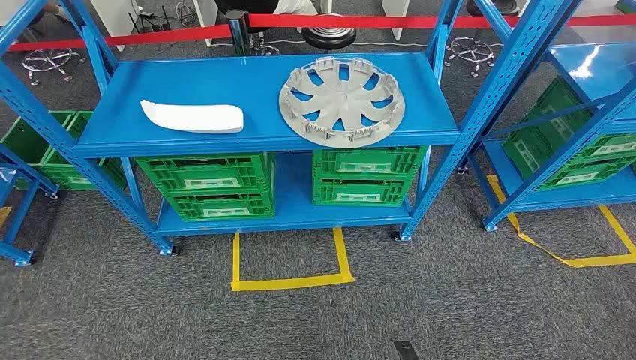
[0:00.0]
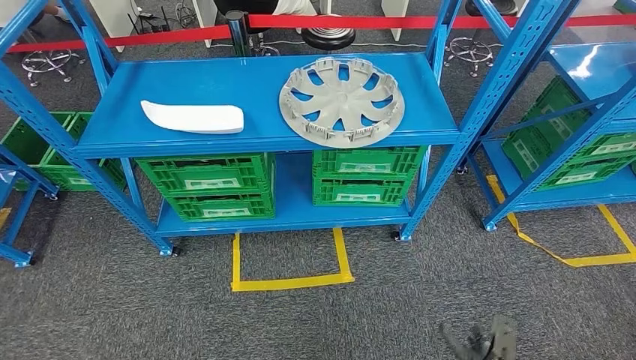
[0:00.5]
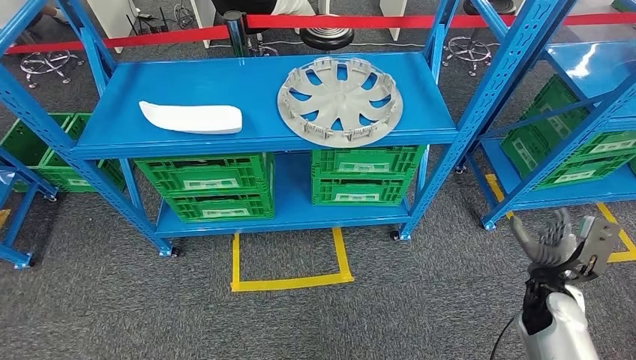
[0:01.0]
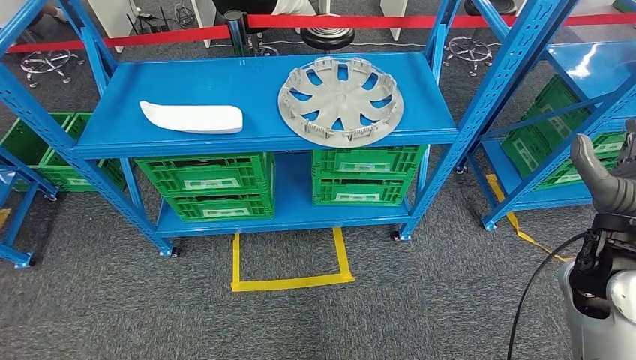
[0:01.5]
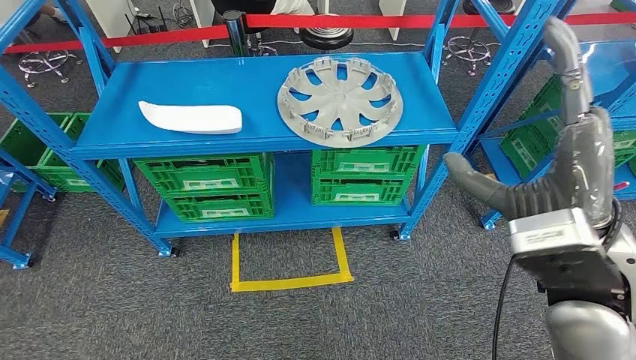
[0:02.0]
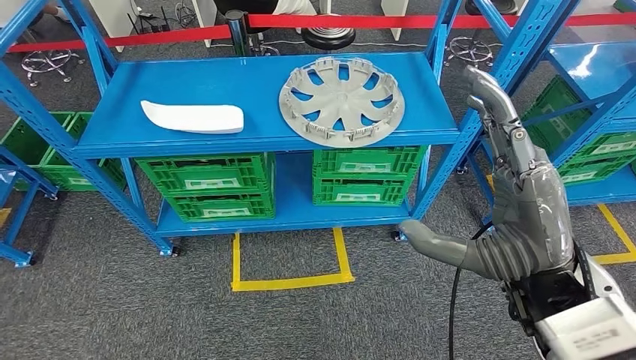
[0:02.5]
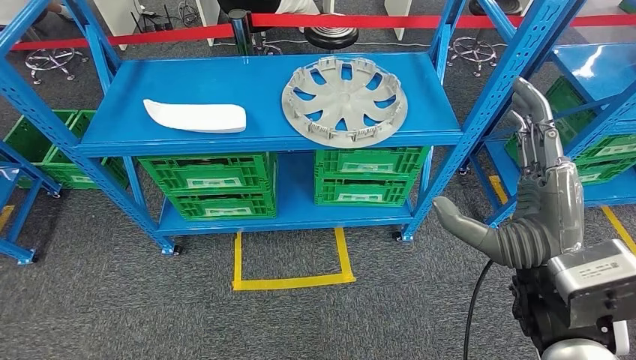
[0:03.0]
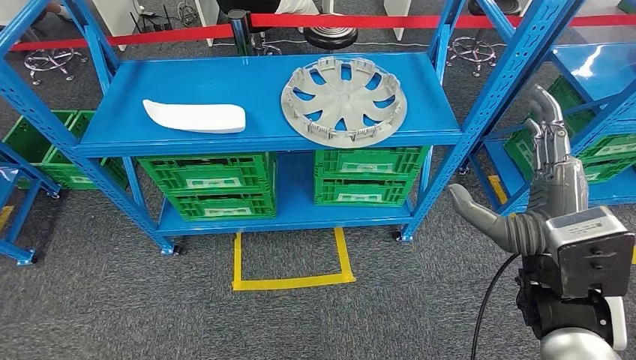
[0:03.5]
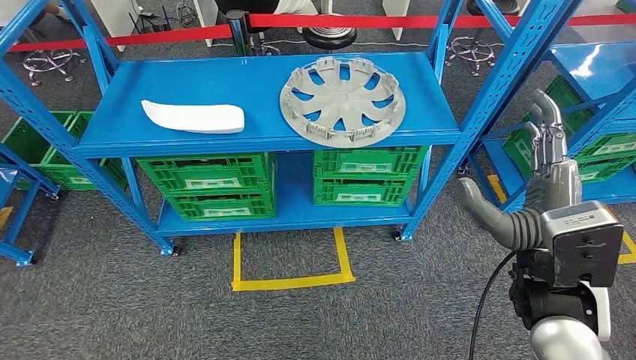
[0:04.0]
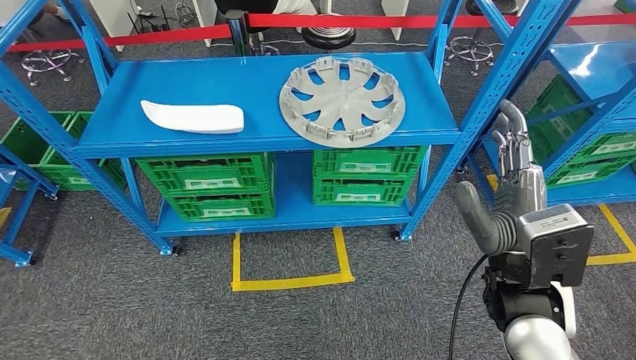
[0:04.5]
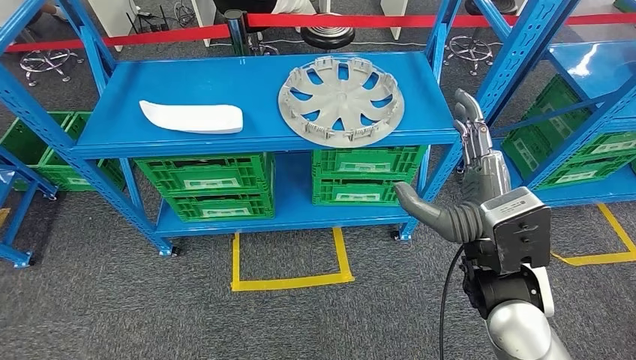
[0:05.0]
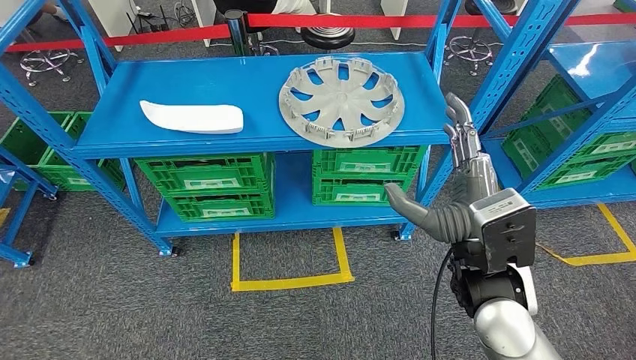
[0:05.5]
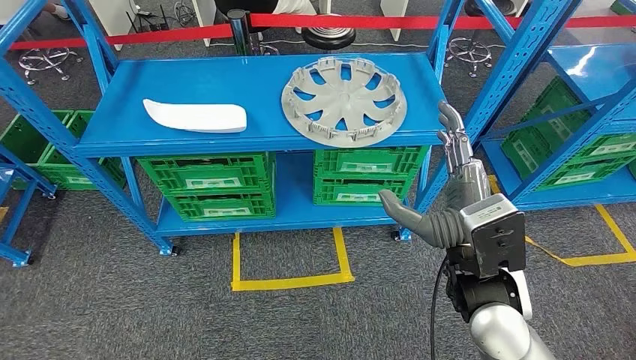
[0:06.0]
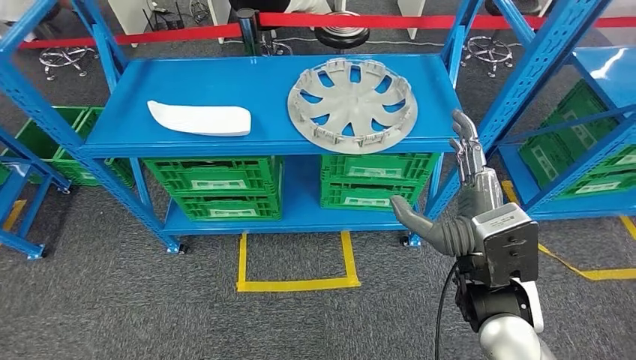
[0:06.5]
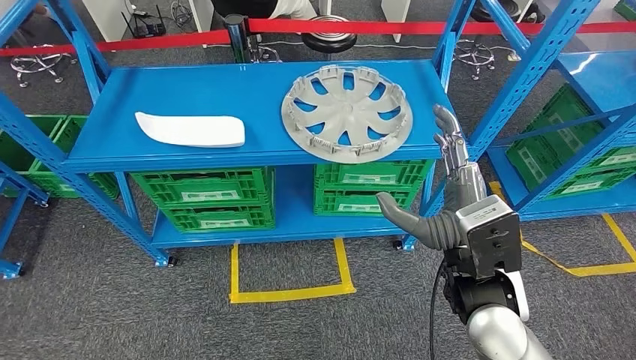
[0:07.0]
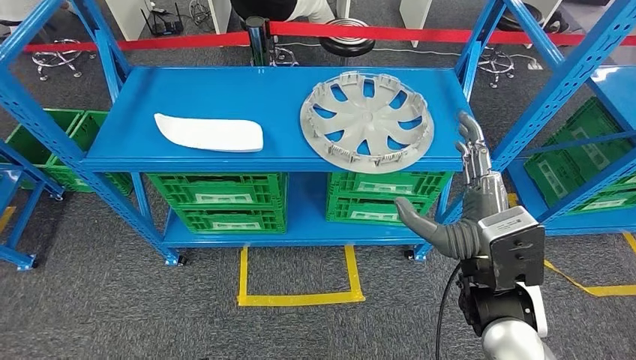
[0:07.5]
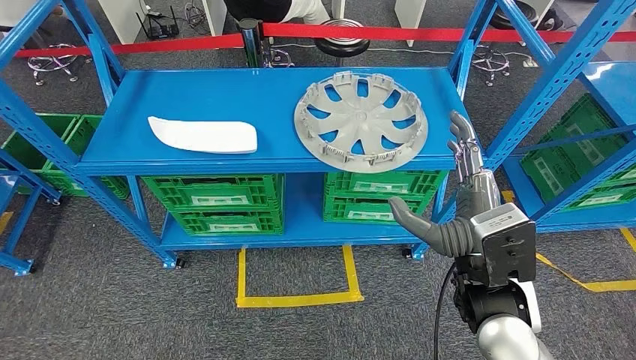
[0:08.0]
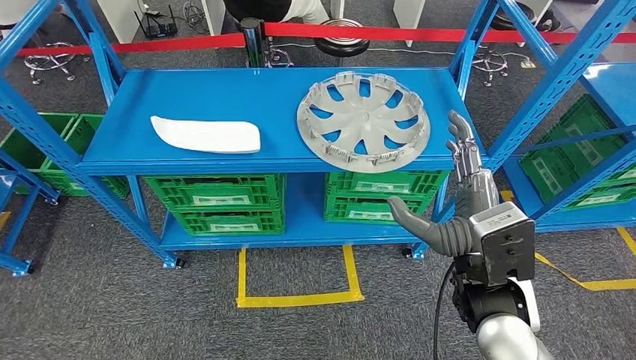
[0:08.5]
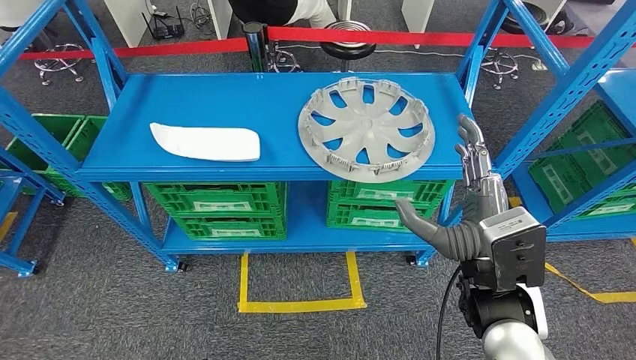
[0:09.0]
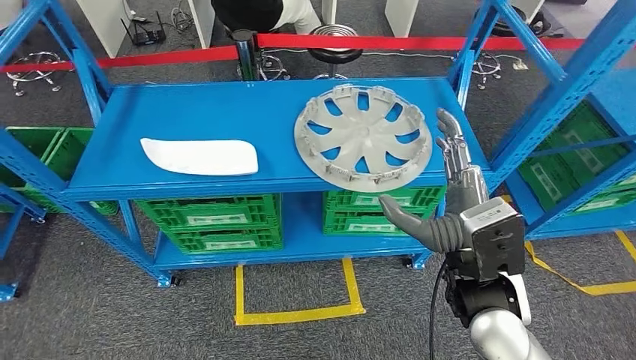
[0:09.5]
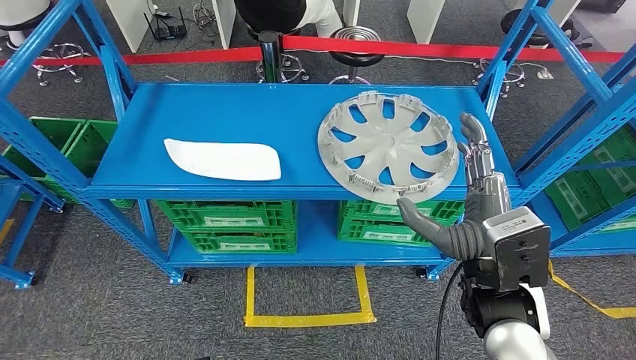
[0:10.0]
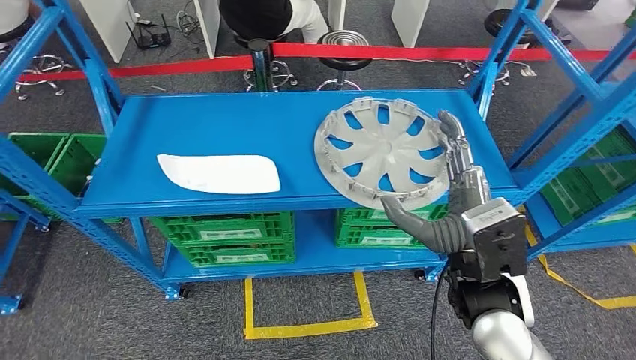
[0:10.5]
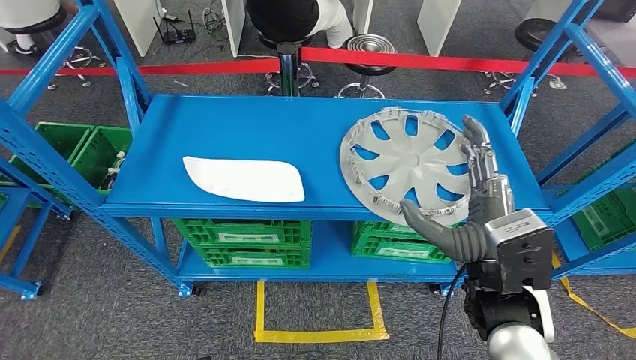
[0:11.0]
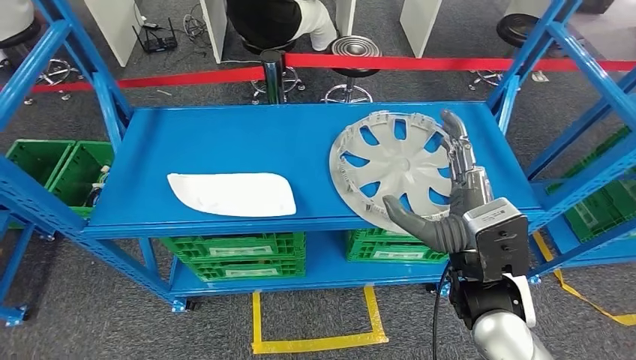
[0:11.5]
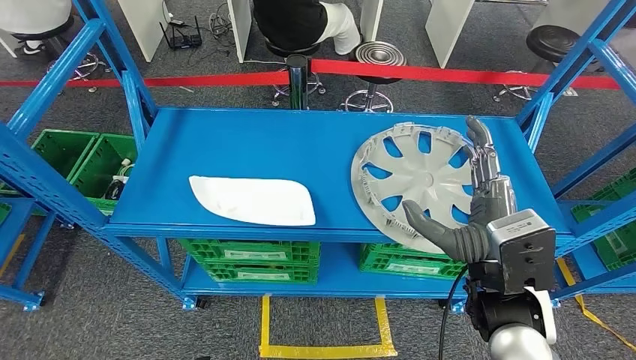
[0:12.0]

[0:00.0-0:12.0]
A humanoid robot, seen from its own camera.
0:02.0 to 0:04.0: The right hand goes approximately 5 cm downward.
0:04.0 to 0:06.0: The right hand shifts about 5 cm to the left.

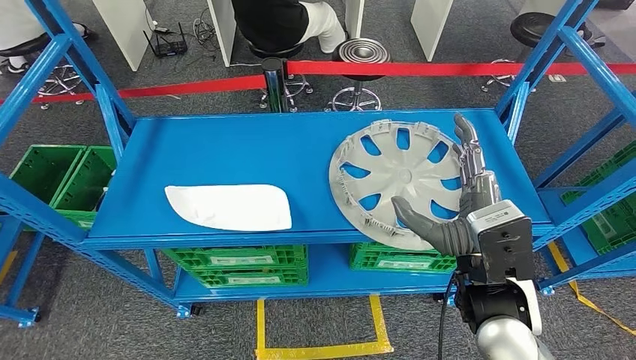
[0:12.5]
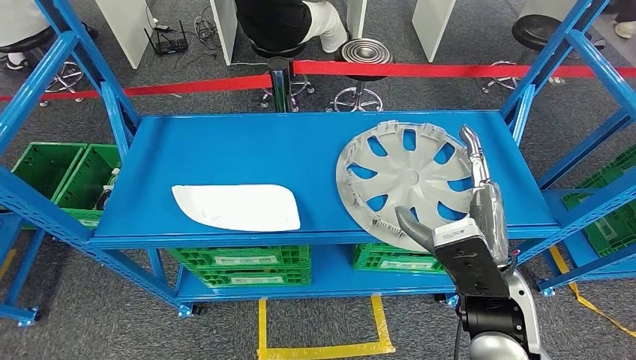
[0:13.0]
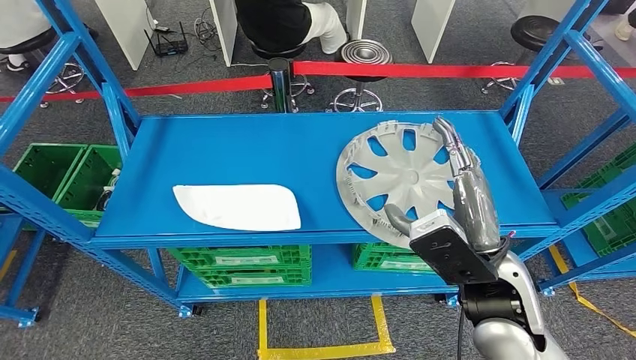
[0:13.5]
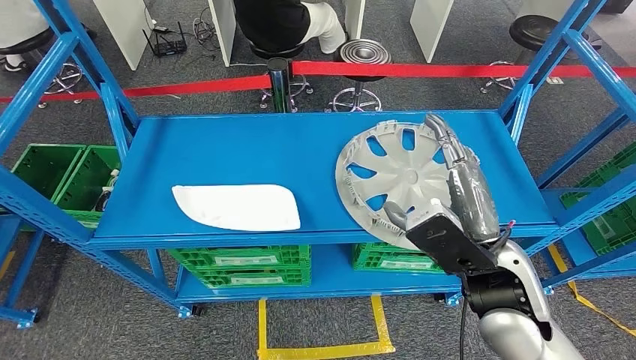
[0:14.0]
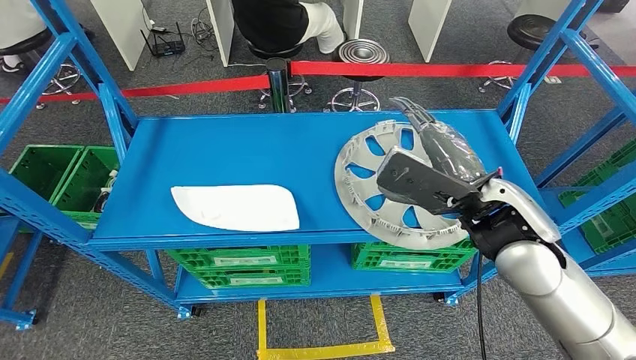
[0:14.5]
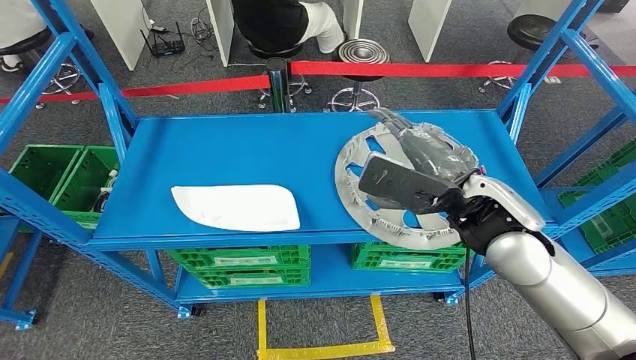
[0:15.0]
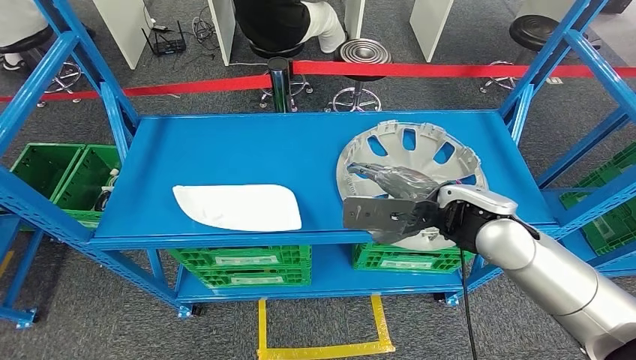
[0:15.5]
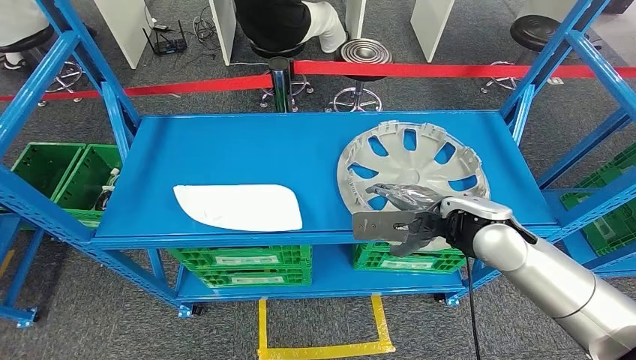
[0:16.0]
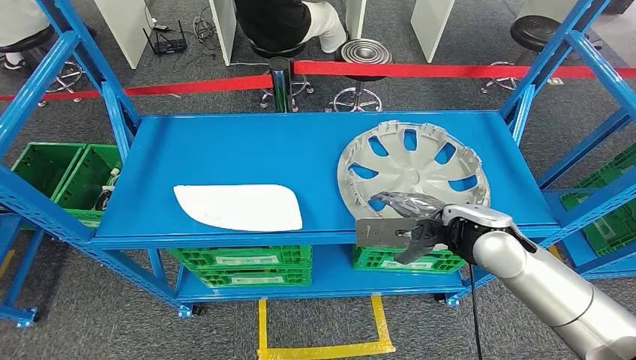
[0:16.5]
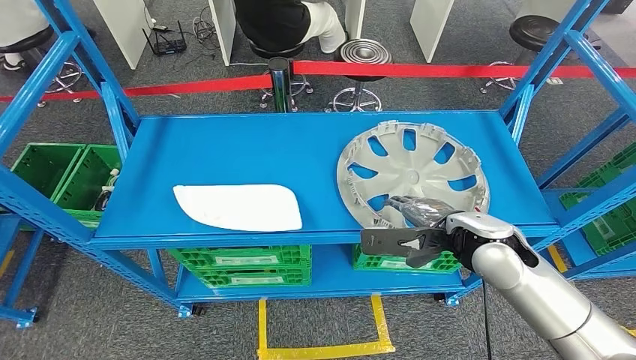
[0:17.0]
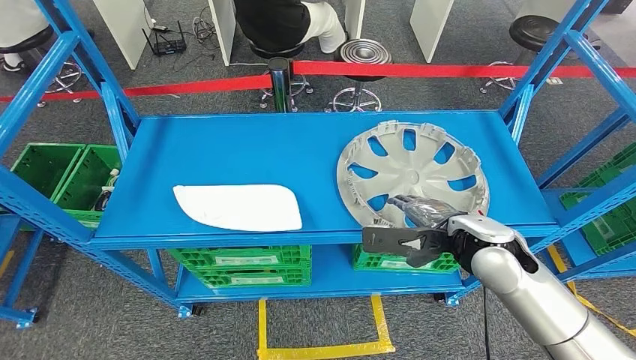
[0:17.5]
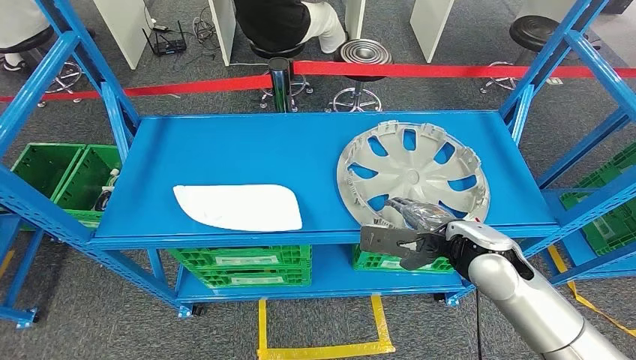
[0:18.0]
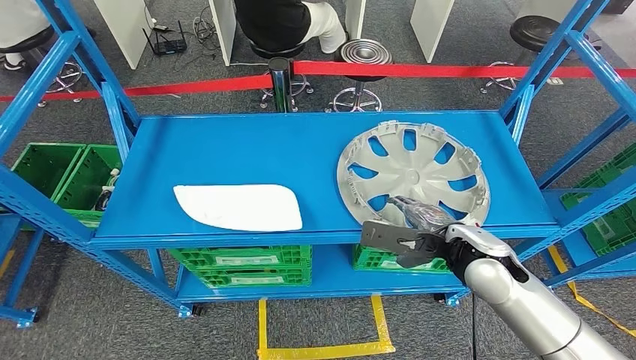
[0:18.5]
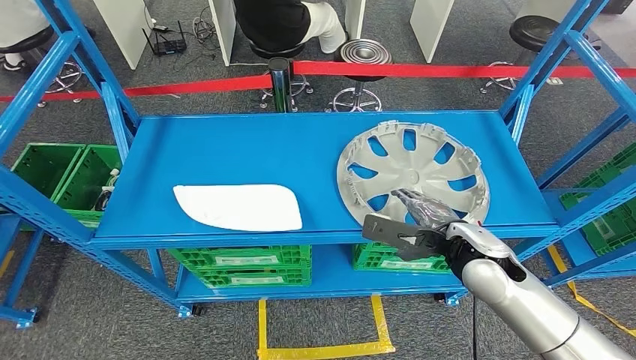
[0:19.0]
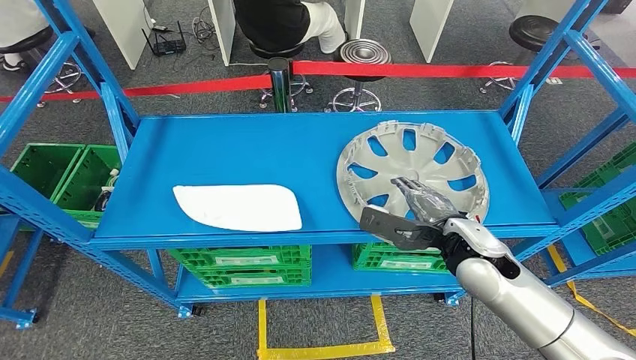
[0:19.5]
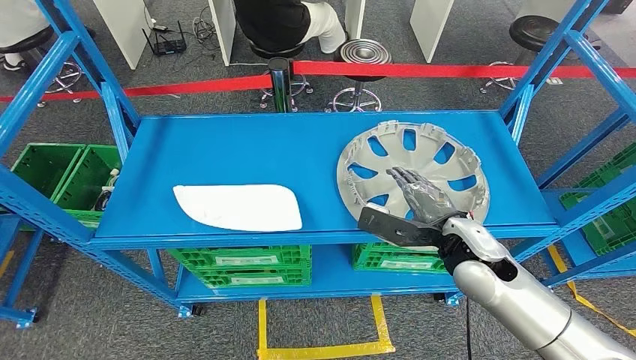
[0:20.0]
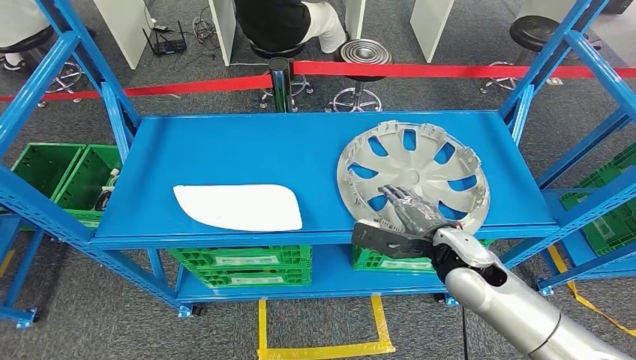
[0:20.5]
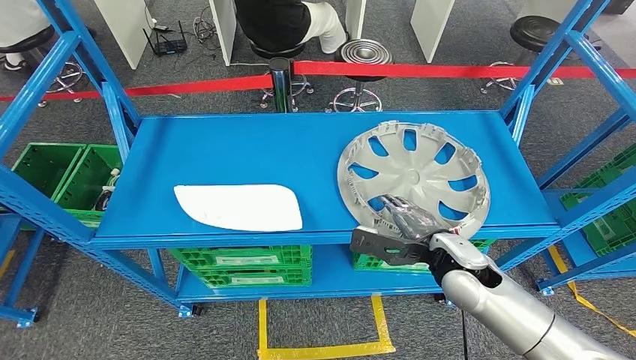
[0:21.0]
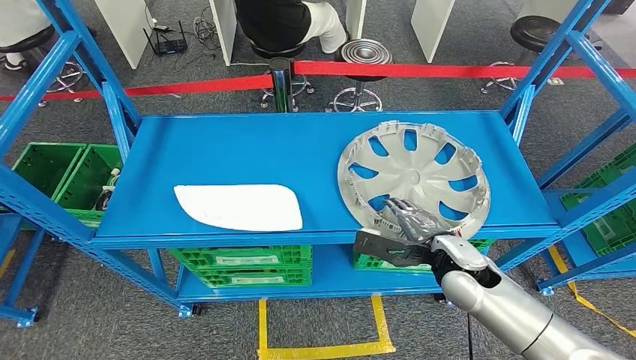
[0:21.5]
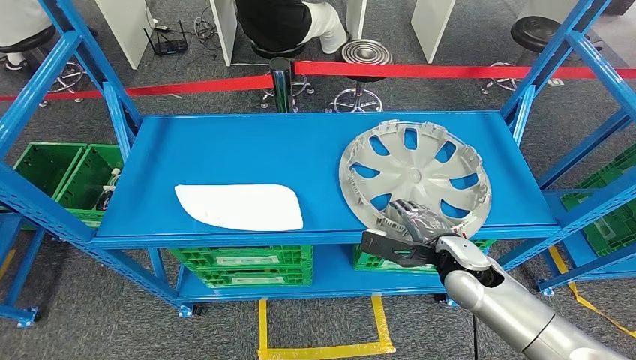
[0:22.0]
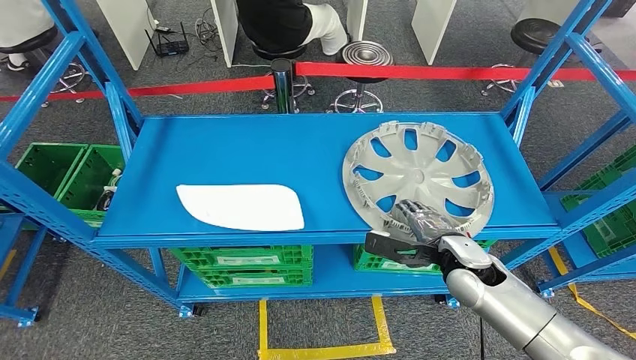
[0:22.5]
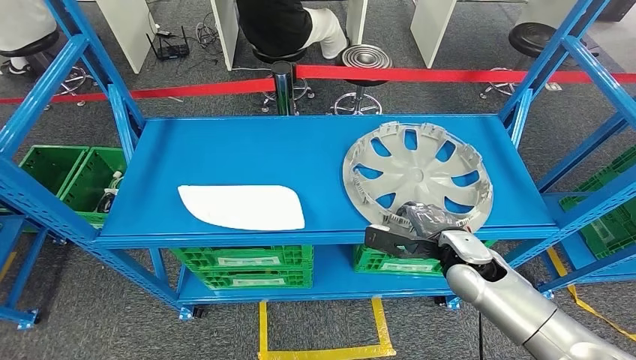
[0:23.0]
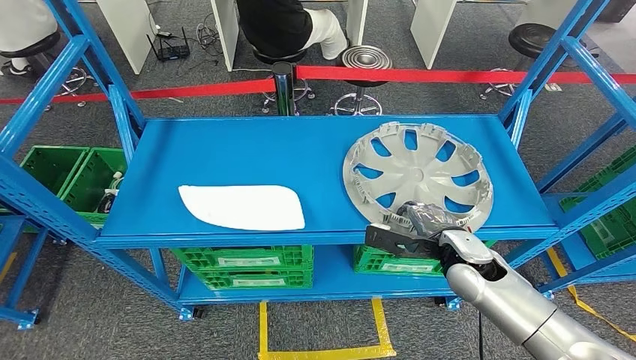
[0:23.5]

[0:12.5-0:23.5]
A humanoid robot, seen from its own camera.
0:14.5 to 0:16.0: The right hand shifts approximately 5 cm downward.
0:16.0 to 0:18.0: The right hand moves roughly 5 cm.
0:20.0 to 0:21.5: The right hand shifts approximately 5 cm downward.
